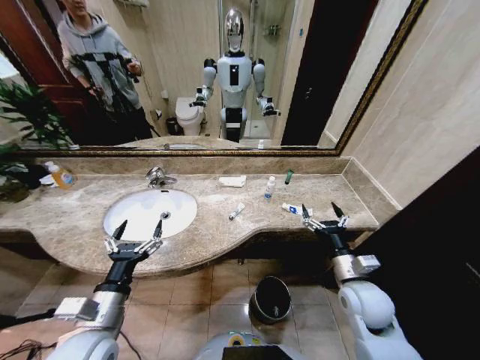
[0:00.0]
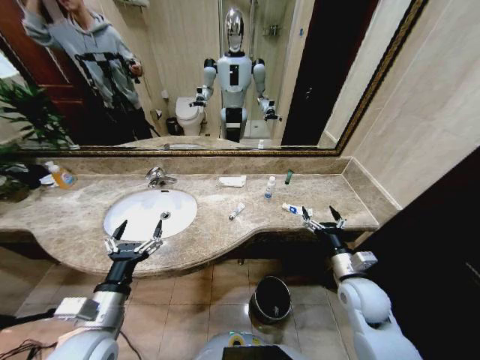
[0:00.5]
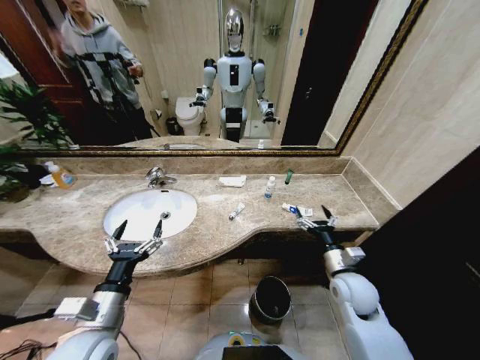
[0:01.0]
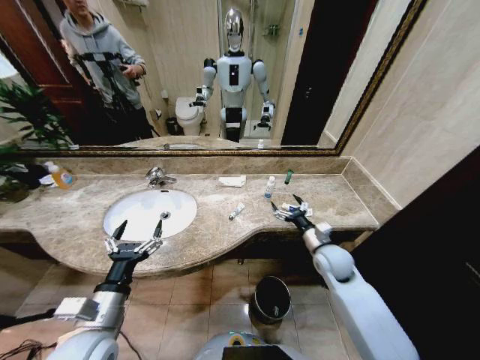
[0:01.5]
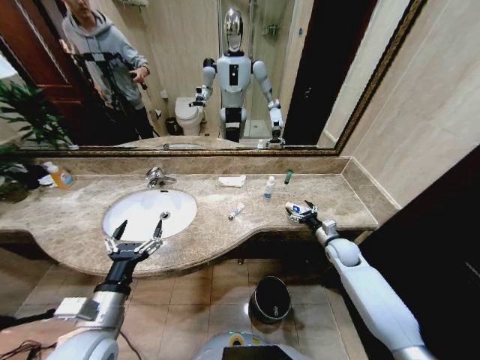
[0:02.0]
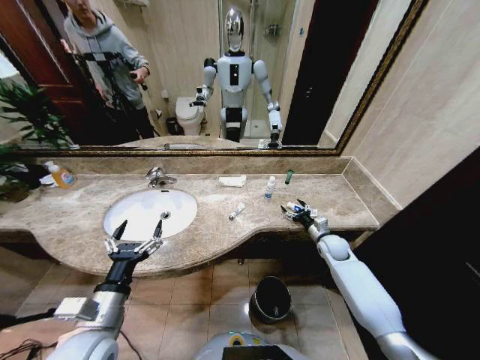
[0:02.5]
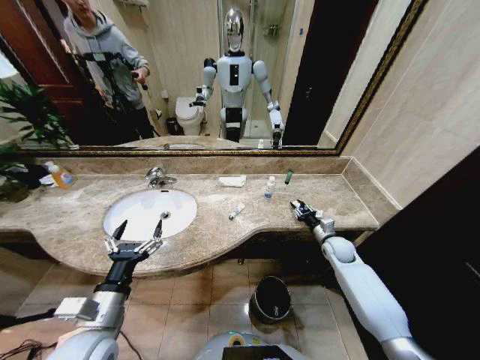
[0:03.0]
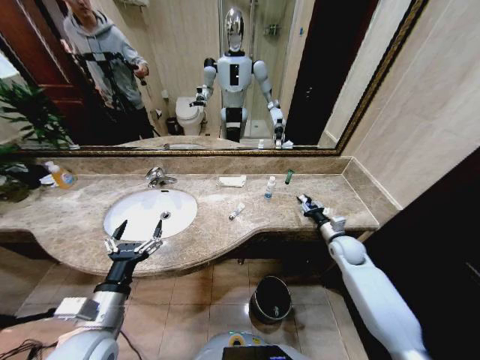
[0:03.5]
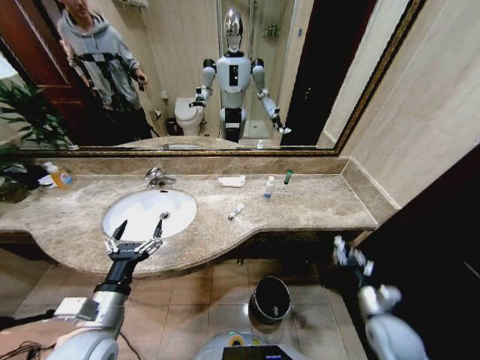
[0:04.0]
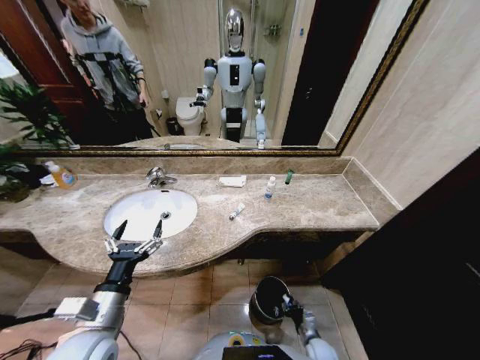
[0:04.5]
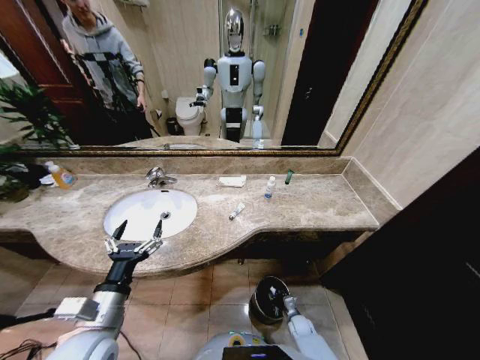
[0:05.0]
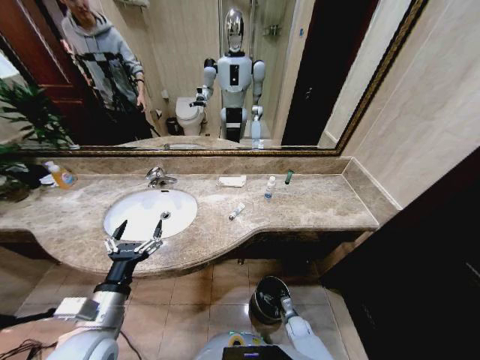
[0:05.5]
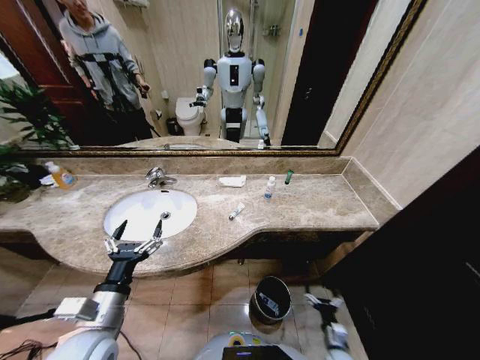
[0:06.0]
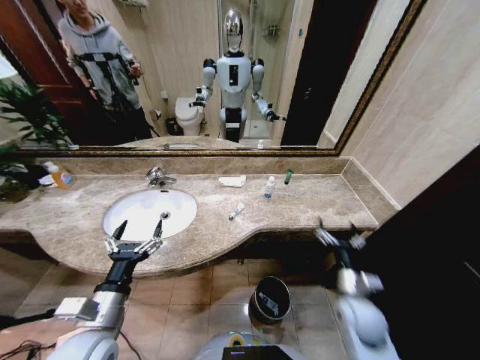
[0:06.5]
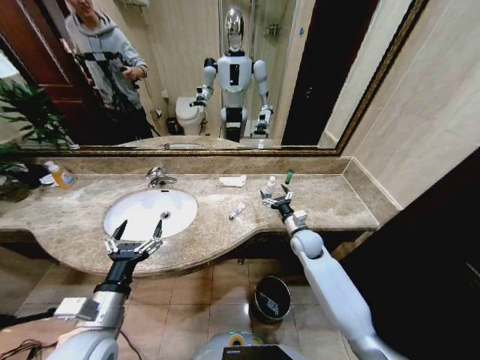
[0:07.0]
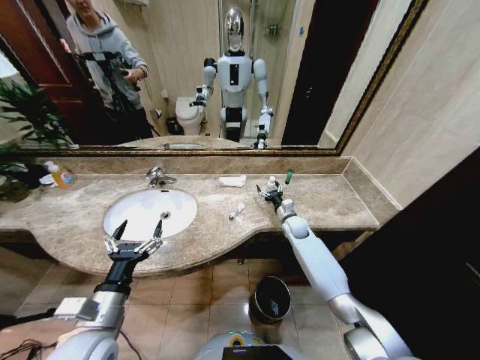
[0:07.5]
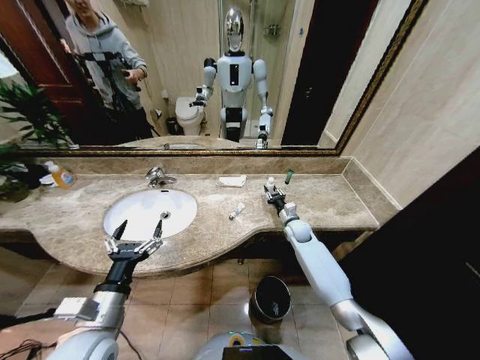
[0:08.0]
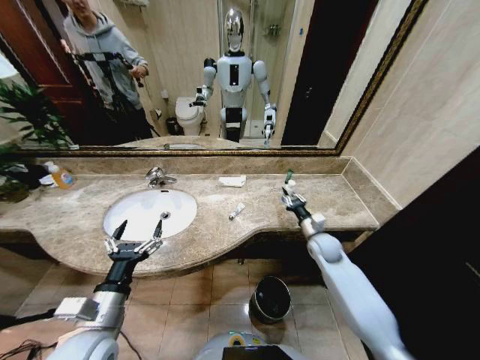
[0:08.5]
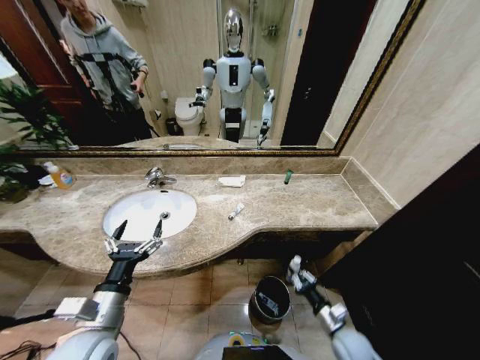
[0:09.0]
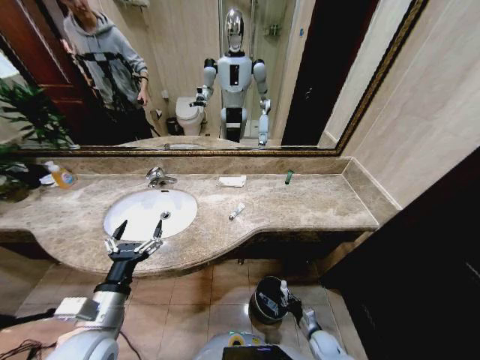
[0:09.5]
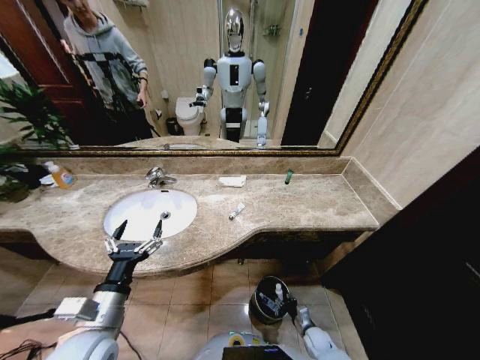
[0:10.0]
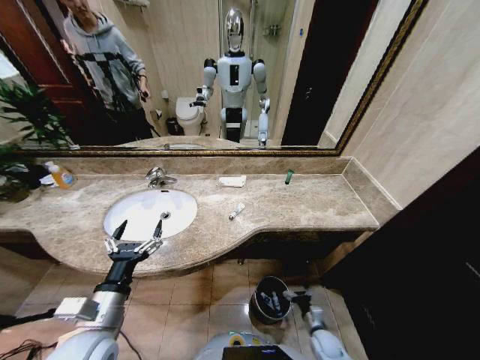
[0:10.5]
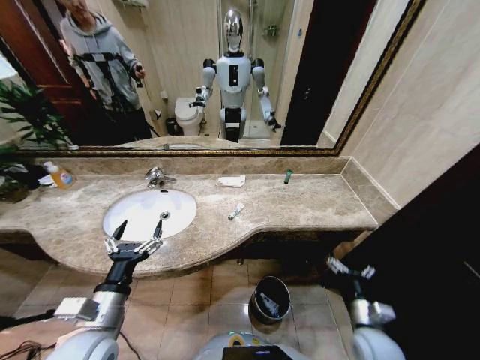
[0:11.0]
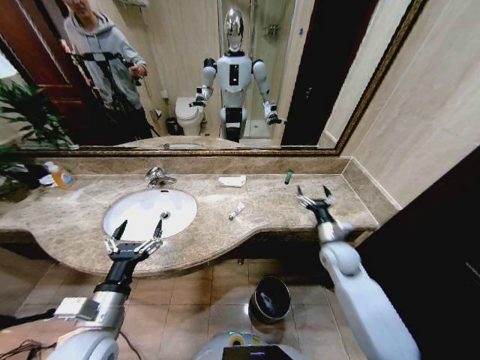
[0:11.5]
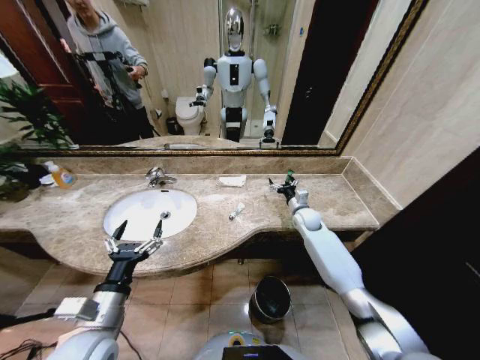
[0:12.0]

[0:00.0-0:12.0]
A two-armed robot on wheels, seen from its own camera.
Task of the whole recording: Pick up the trash from the sink and place it in the trash bin.
0:02.0 to 0:04.0: The right gripper is displaced backward by about 25 cm, and closes its fingers.
0:04.0 to 0:06.0: The right gripper is displaced downward by about 20 cm, and opens up.
0:06.0 to 0:08.0: The right gripper travels forward and upward by about 40 cm, and closes.
0:08.0 to 0:10.0: The right gripper moves backward and downward, some 40 cm.
0:10.0 to 0:12.0: The right gripper goes some 50 cm upward and forward, and opens up.

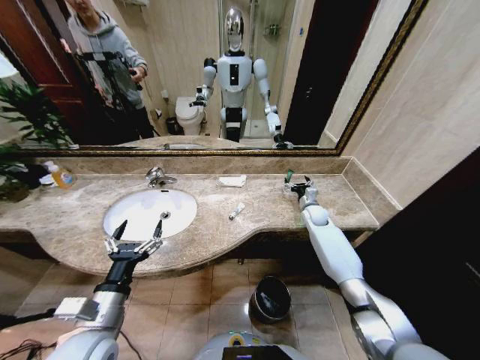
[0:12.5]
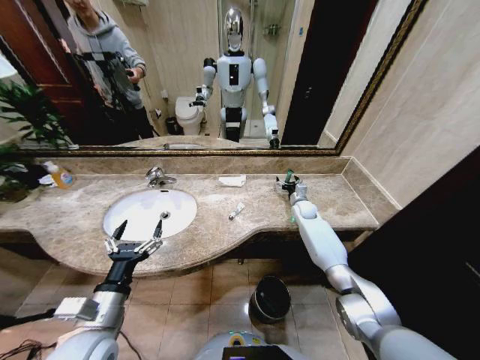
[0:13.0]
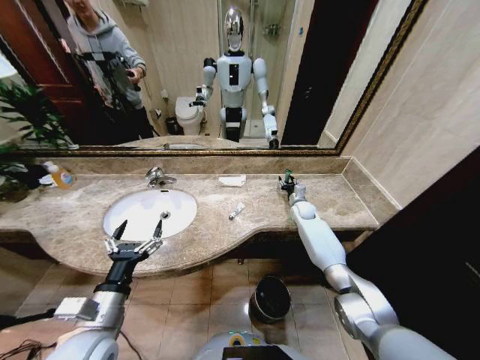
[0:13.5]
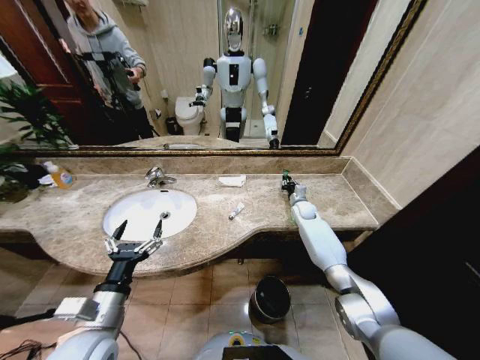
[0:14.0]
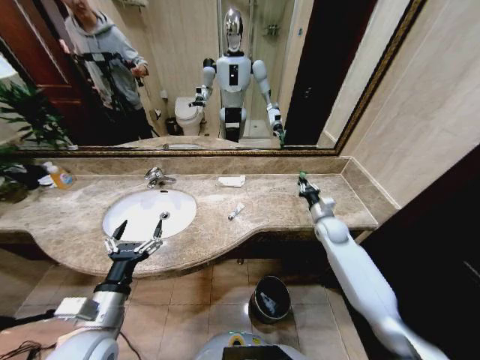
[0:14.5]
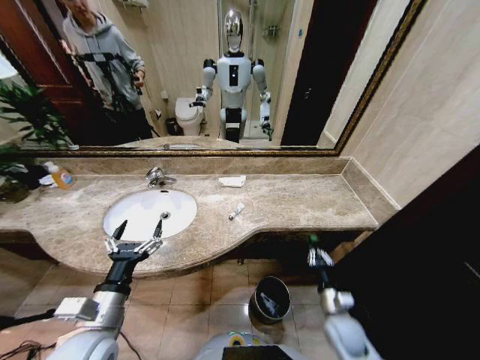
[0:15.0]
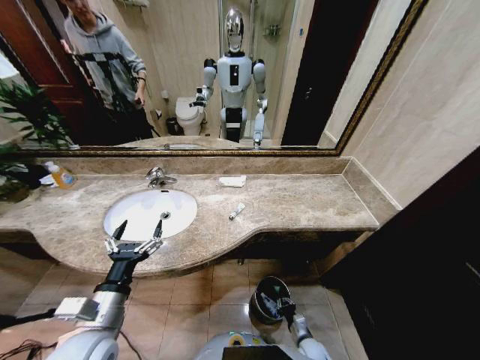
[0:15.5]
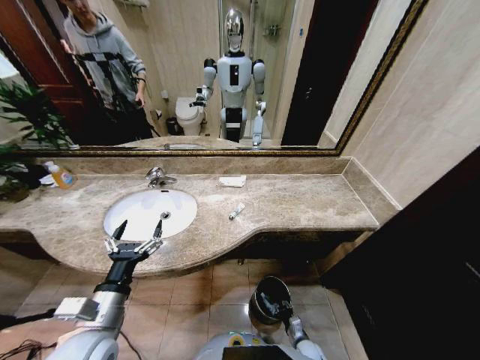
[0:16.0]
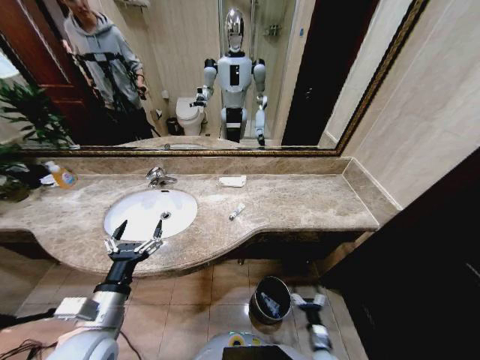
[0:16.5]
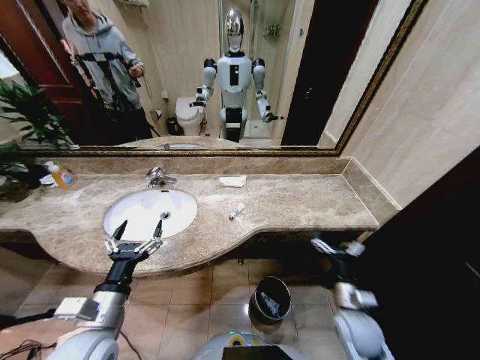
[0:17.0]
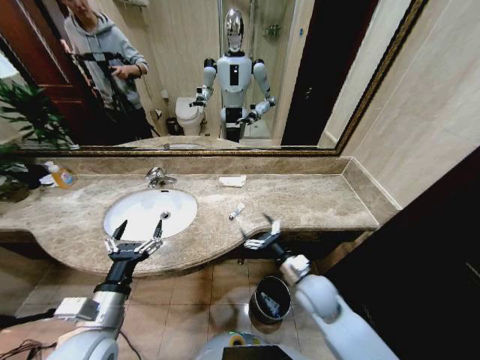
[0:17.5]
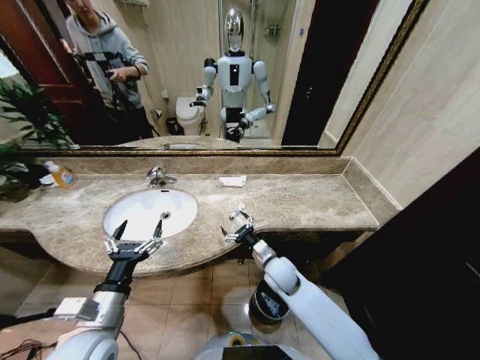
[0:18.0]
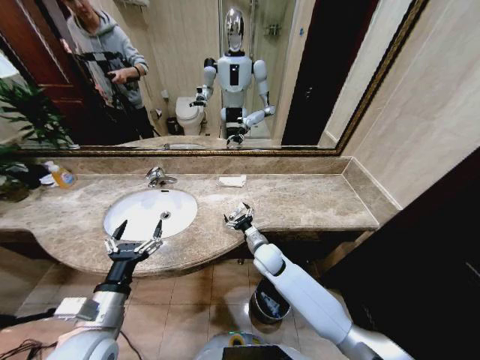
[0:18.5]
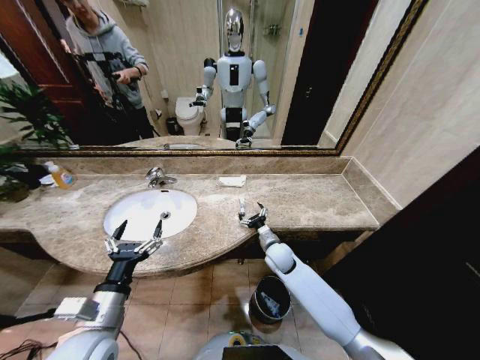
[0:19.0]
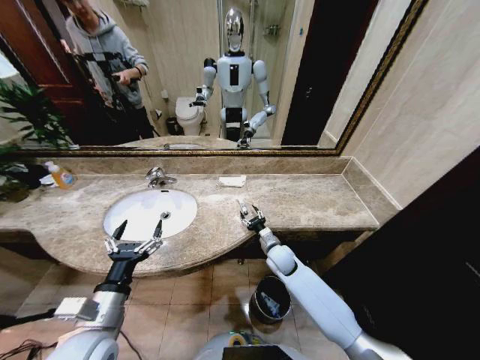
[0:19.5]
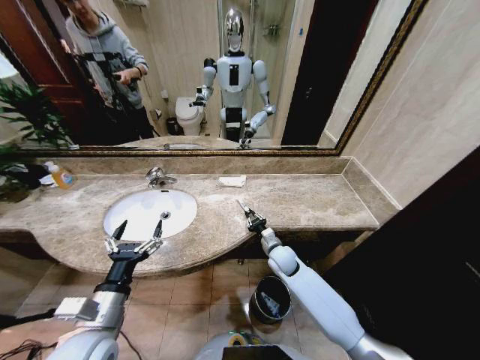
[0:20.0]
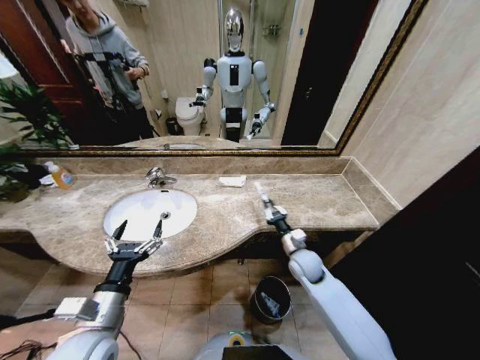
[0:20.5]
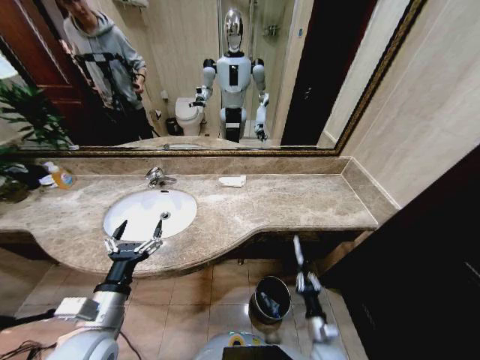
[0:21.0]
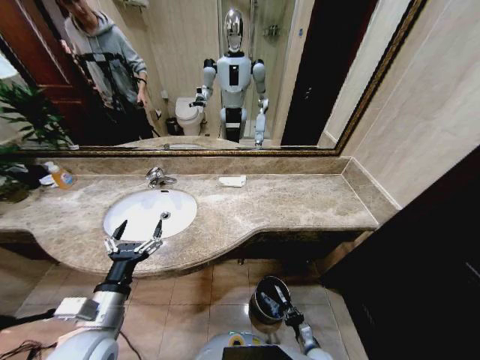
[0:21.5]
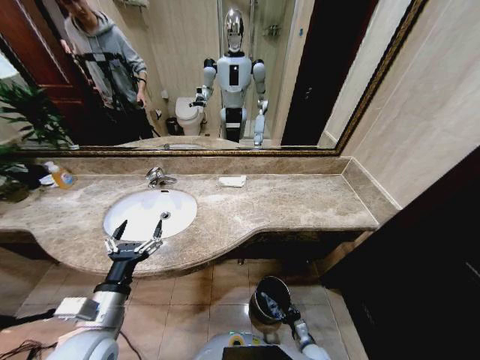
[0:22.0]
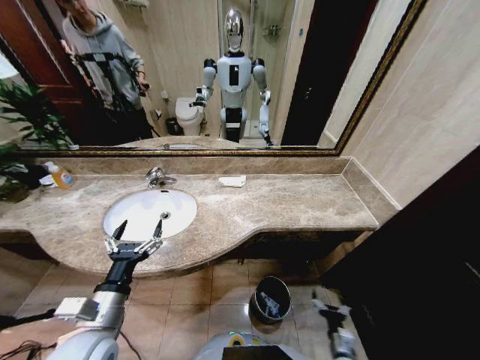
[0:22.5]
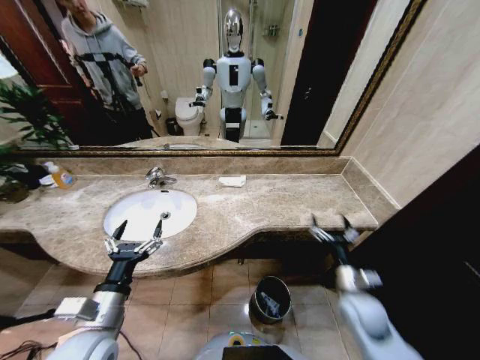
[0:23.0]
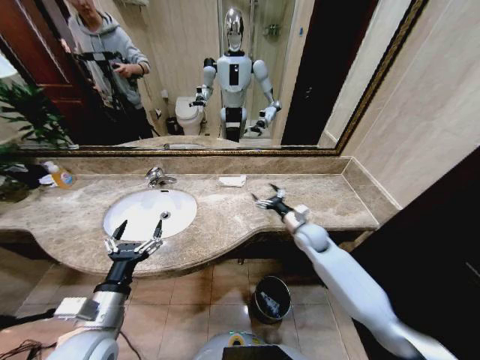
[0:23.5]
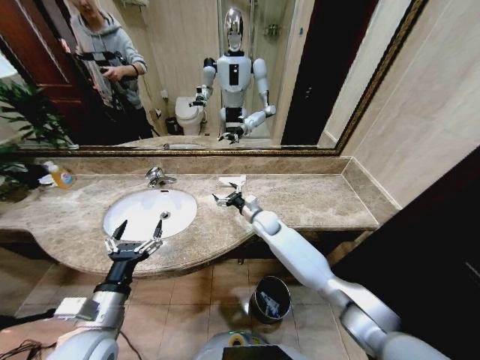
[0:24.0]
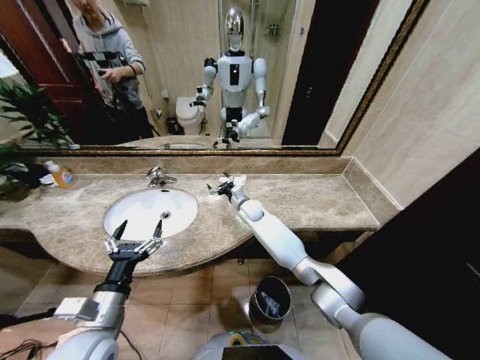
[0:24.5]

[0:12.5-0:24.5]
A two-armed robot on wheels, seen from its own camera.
Task of the whole recording: Pick up the trash from the sink and place it in the trash bin.
0:12.5 to 0:14.5: The right gripper is displaced backward by some 10 cm, and closes.
0:14.5 to 0:16.5: The right gripper is displaced backward and downward by some 40 cm, and opens its fingers.
0:16.5 to 0:18.5: The right gripper is displaced forward, upward and to the left by approximately 40 cm.
0:18.5 to 0:20.5: The right gripper shifts some 10 cm to the right, and closes.
0:20.5 to 0:22.5: The right gripper is displaced backward and downward by some 30 cm, and opens its fingers.
0:22.5 to 0:24.5: The right gripper heads forward, to the left and upward, covering roughly 60 cm.

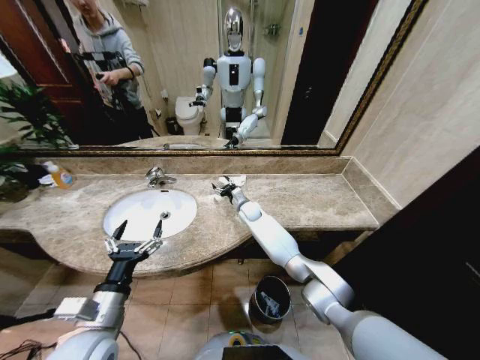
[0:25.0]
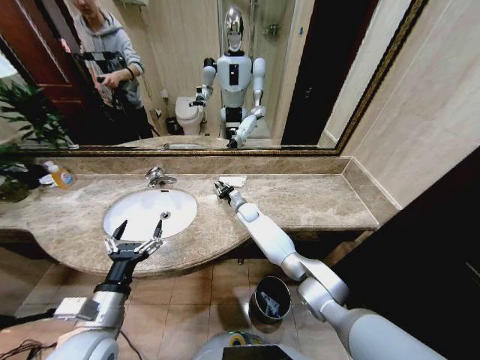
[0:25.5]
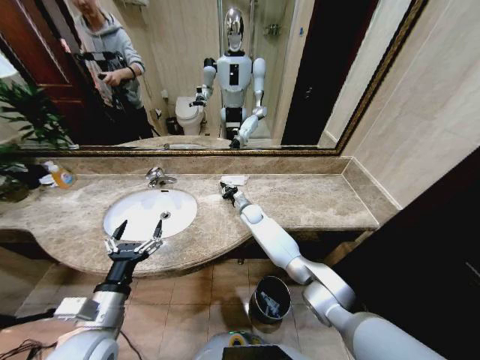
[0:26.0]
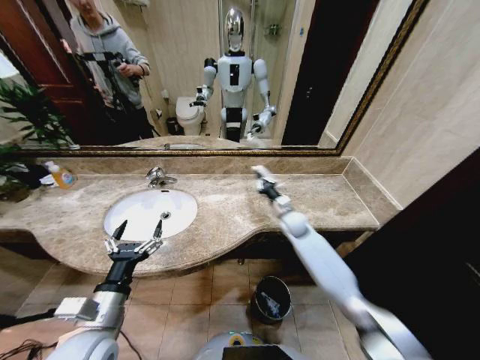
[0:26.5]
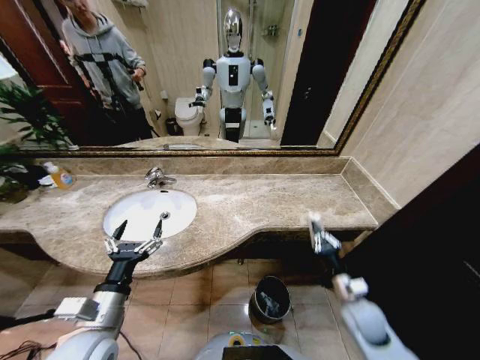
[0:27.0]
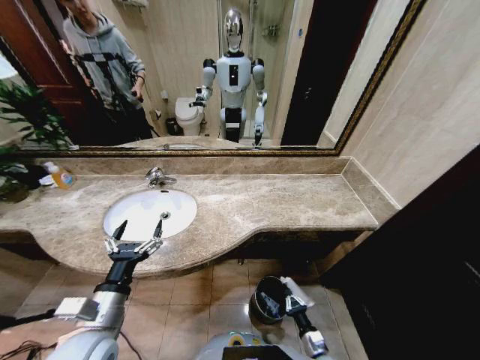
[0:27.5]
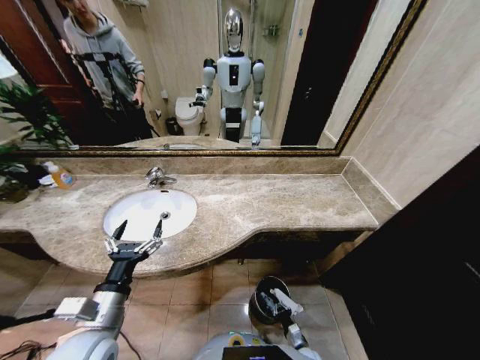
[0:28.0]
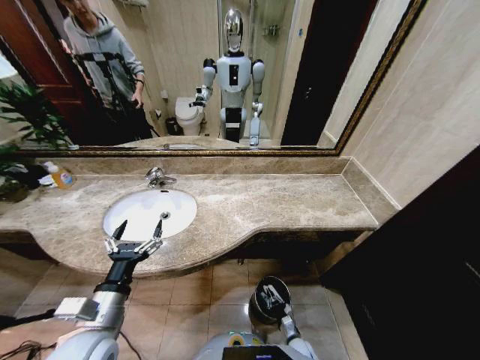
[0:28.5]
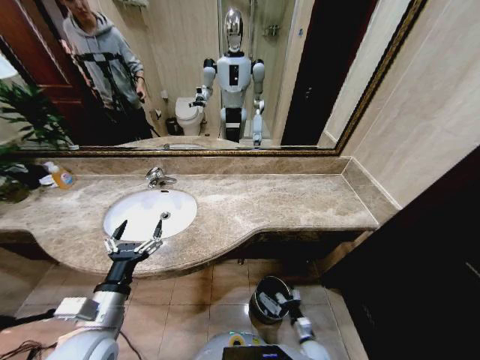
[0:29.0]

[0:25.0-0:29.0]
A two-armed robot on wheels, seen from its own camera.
Task of the whole recording: Pick up the trash from the sink and place it in the trash bin.
0:25.0 to 0:27.0: The right gripper travels backward and to the right by about 40 cm, and closes.
0:27.0 to 0:29.0: The right gripper goes approximately 30 cm downward, and opens.
